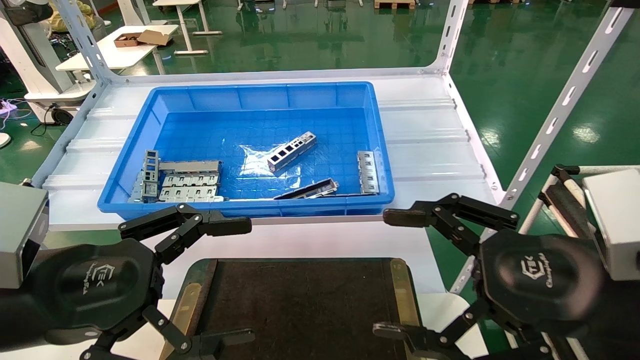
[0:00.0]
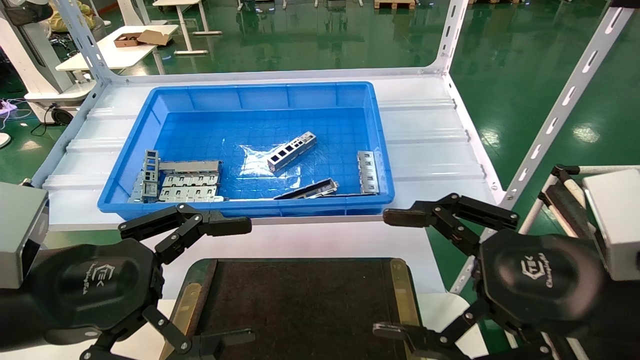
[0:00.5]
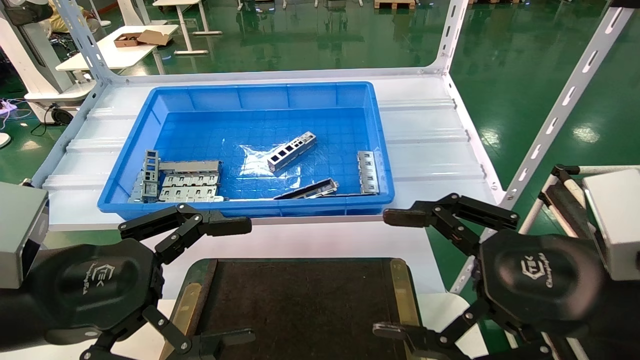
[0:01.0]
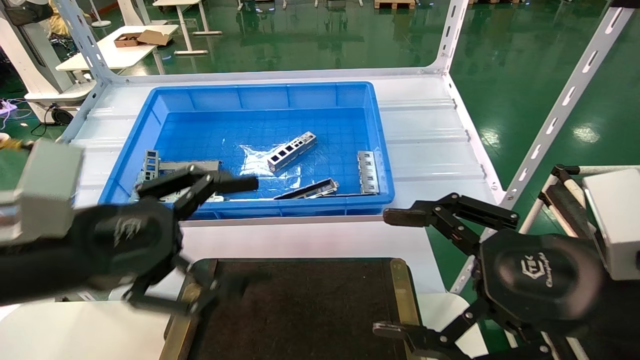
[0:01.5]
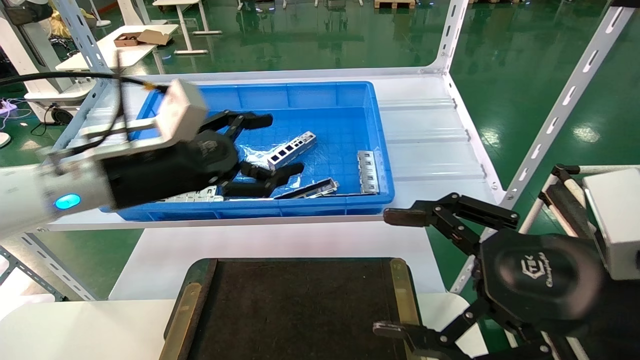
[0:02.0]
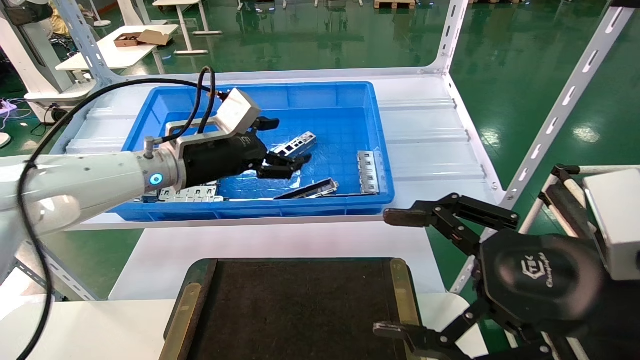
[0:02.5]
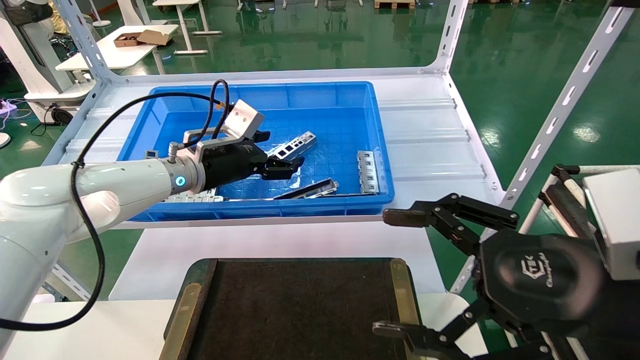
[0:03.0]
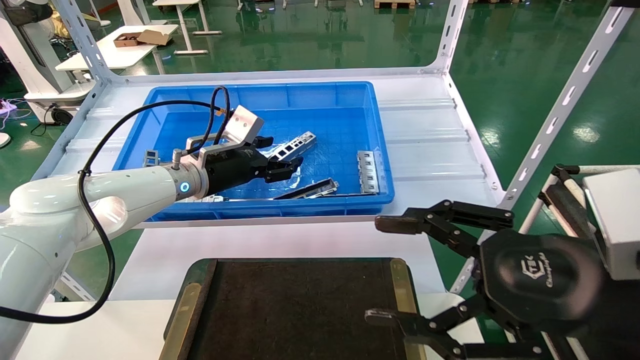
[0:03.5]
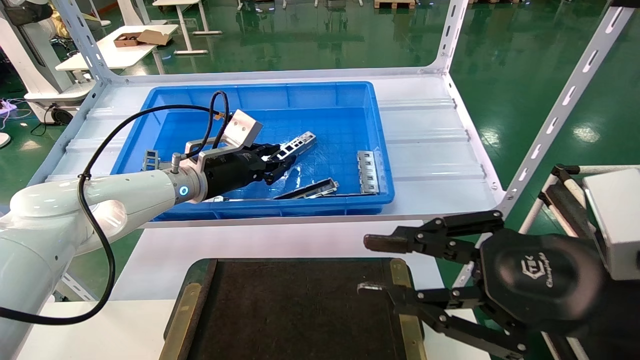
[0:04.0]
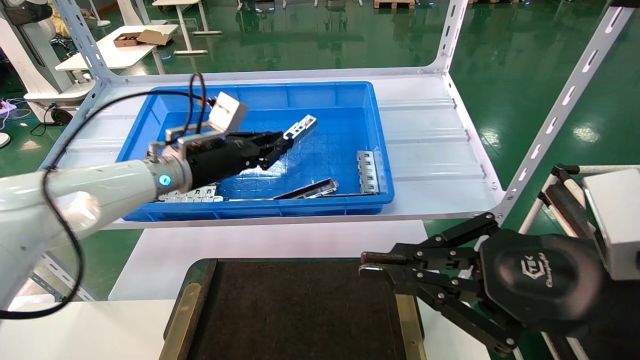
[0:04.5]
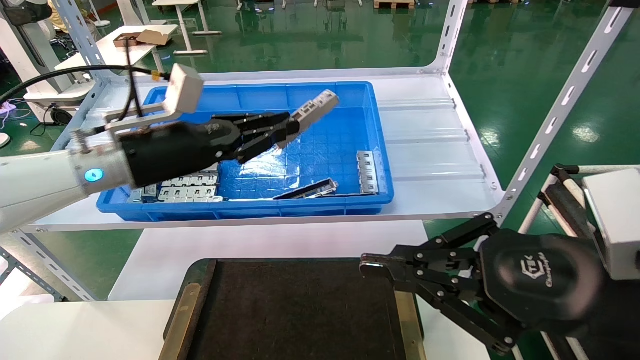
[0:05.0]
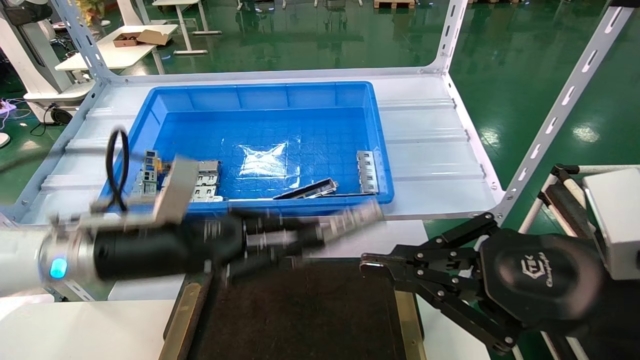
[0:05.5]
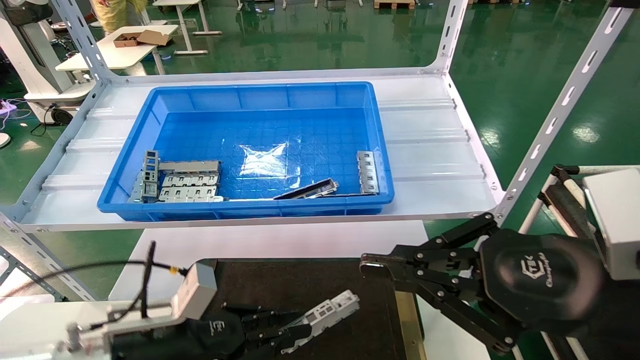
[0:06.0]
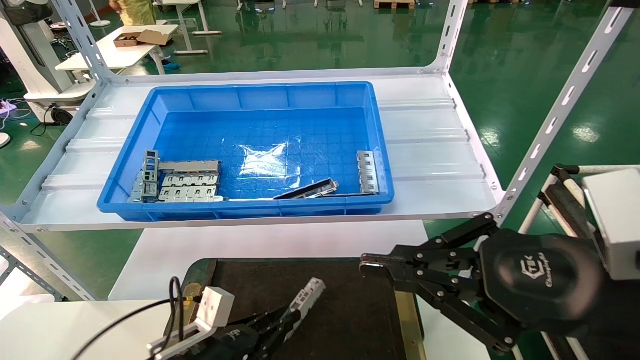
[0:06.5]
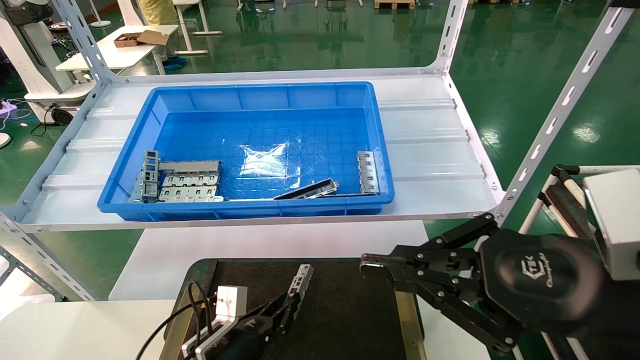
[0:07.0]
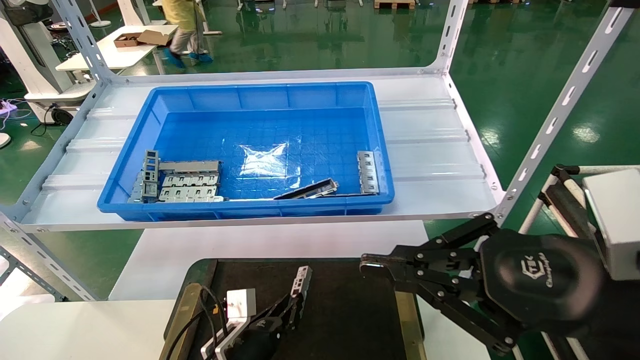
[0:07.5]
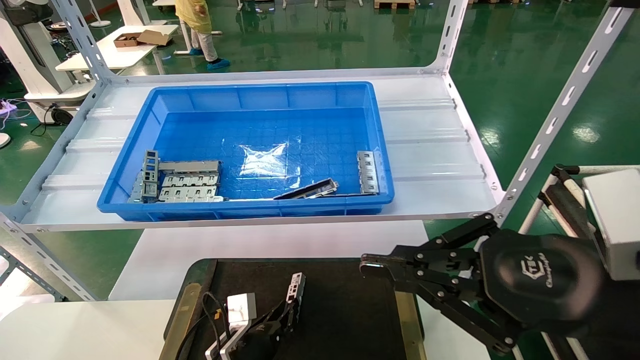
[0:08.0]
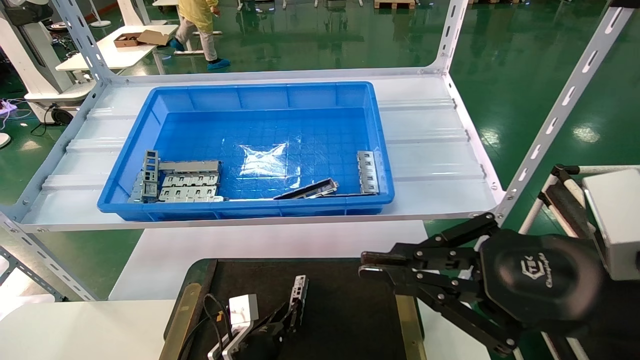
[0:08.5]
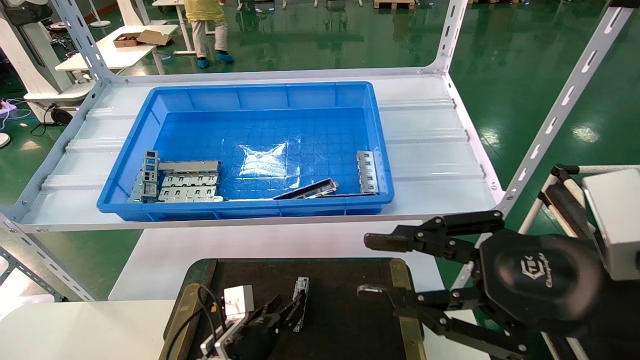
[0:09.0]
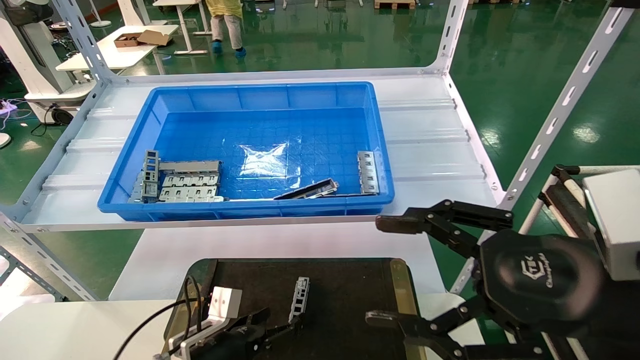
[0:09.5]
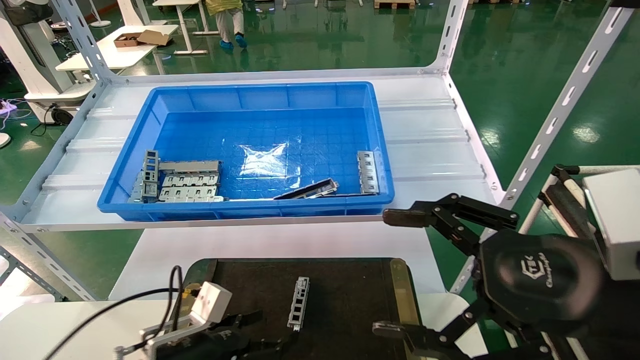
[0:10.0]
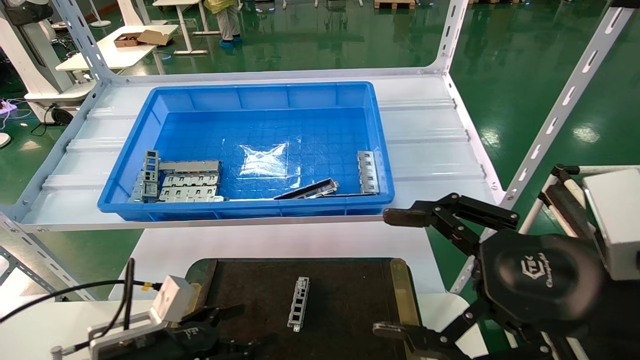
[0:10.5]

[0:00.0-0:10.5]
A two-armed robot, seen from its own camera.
Task of the whole recording: Grasp the part with one hand and place it on the black container.
Step, 0:02.0 to 0:04.0: Pick up the front USB bracket from the feeding area.
Step, 0:04.5 to 0:08.0: Place the front USB bracket into the box.
0:00.0 to 0:02.0: The left gripper shifts approximately 15 cm forward.
0:02.0 to 0:04.0: The right gripper closes its fingers; the left gripper goes some 15 cm forward, and closes up.
0:04.0 to 0:06.5: The left gripper goes approximately 30 cm downward and backward, and closes up, while the right gripper closes up.
0:06.5 to 0:08.5: The left gripper shifts about 10 cm downward, to the right and forward.
0:08.5 to 0:10.5: The right gripper opens; the left gripper heads to the left, upward and backward, covering approximately 20 cm, and opens.
